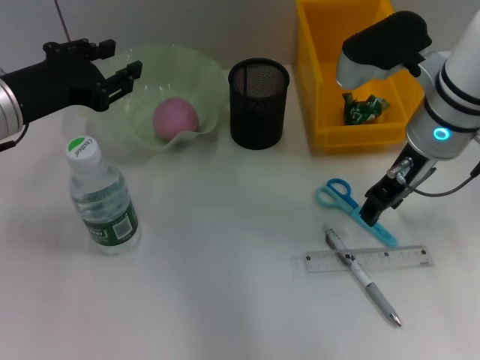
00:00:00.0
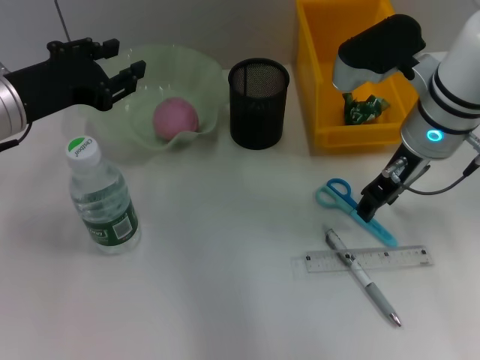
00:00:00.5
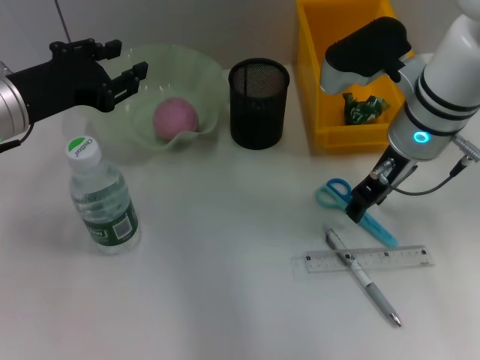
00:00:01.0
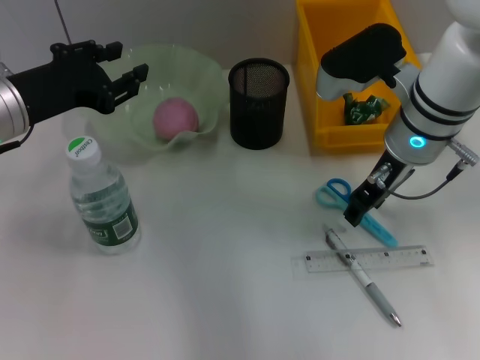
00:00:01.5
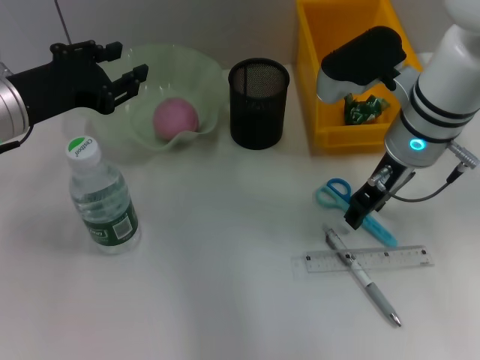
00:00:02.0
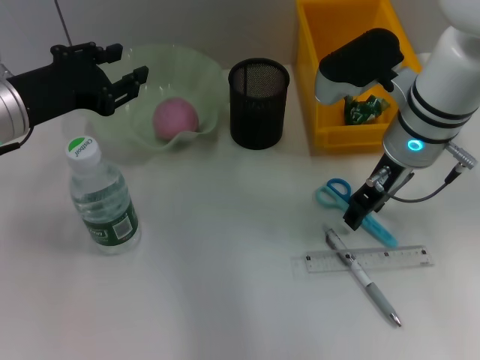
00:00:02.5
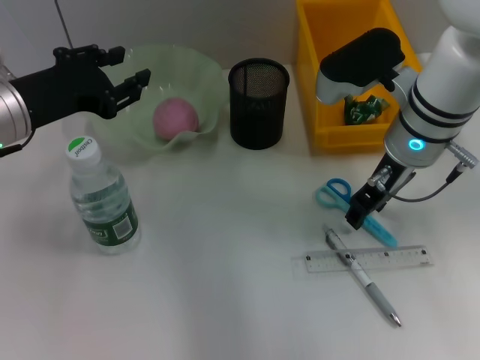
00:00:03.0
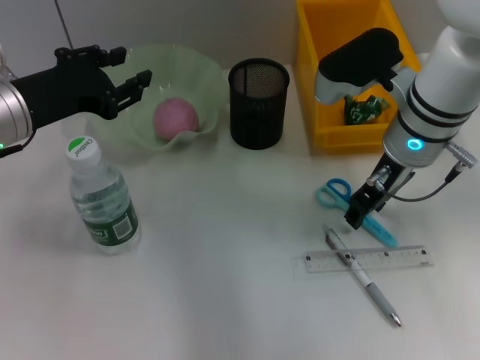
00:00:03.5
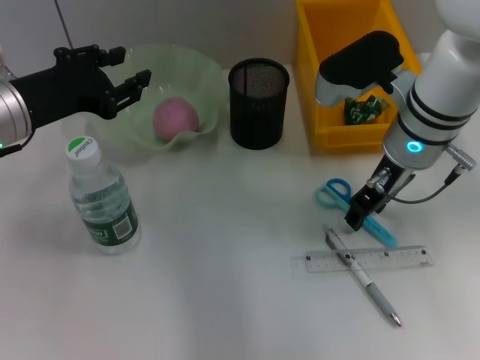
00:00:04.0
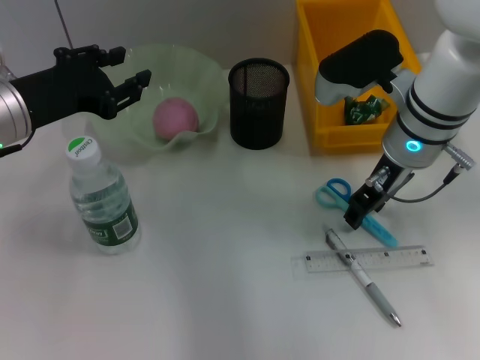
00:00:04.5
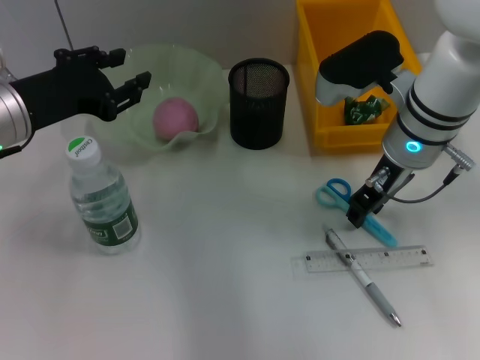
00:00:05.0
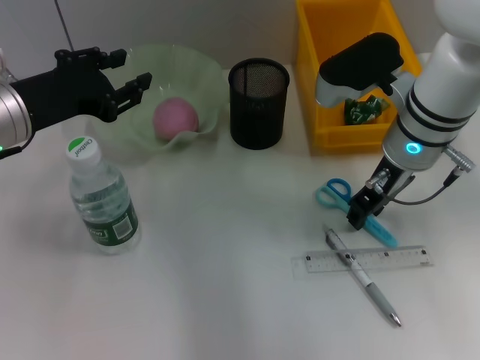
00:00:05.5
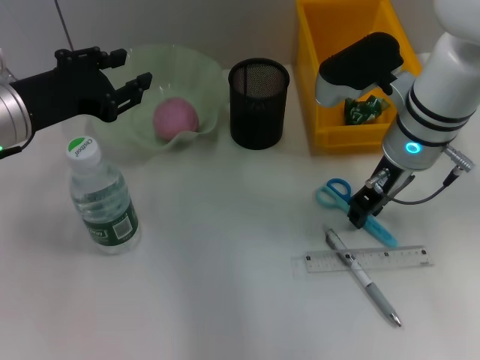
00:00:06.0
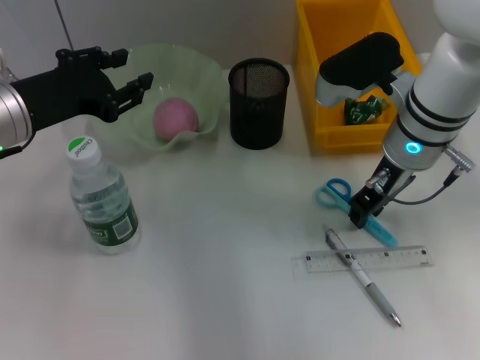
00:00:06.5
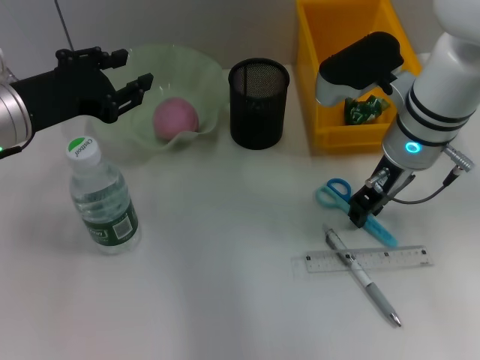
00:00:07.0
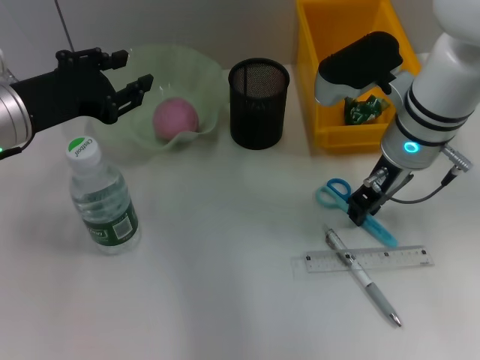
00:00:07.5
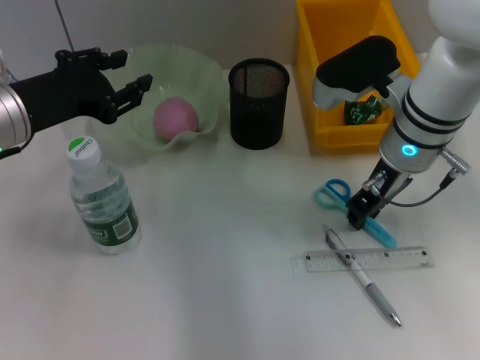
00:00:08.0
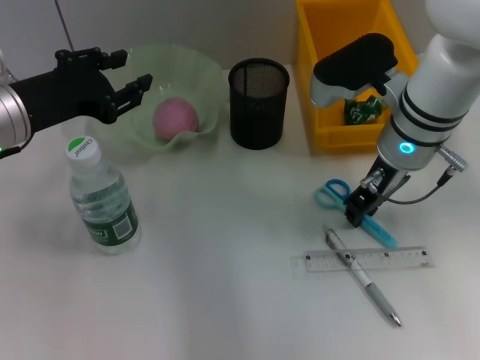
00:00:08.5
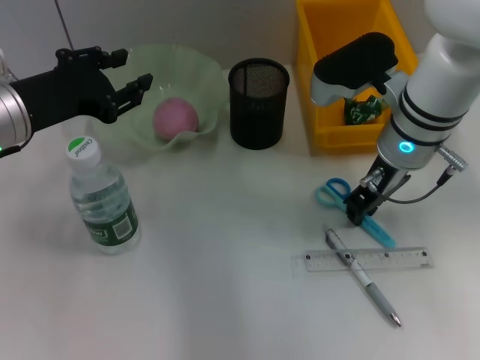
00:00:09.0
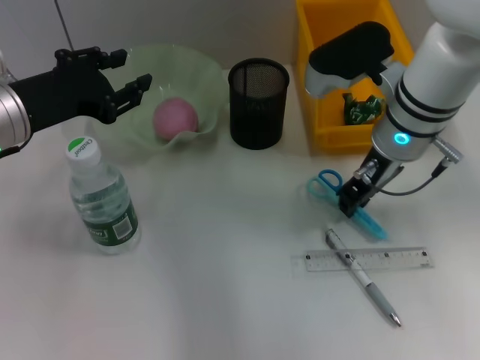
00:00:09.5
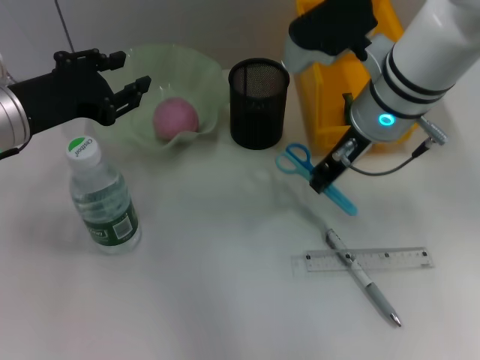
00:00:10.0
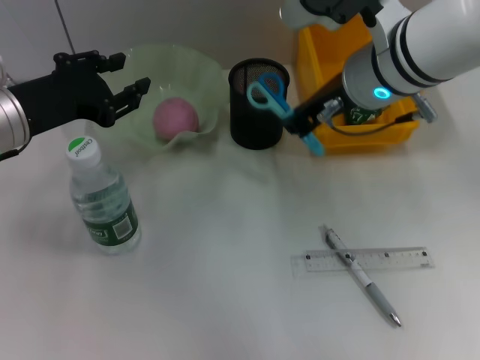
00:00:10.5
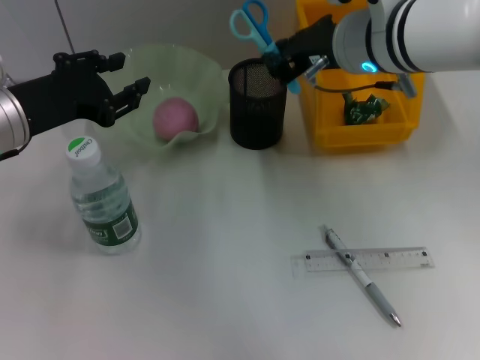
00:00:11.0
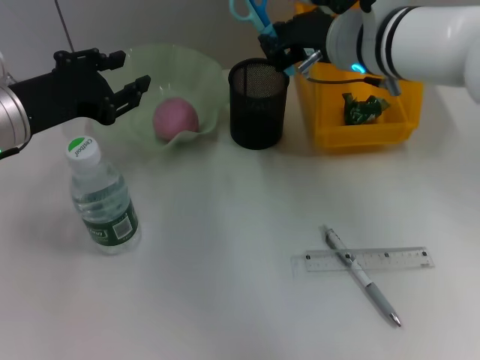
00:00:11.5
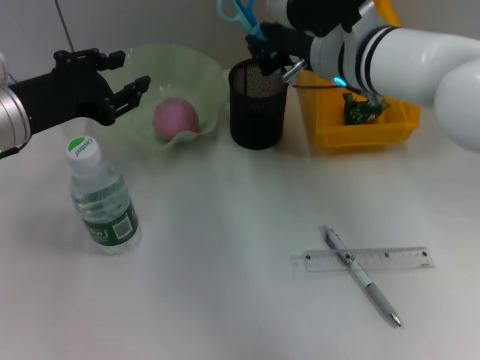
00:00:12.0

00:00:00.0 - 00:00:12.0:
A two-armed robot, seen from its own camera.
Step, 00:00:00.0 - 00:00:09.0: Grab the blue scissors with the right hand.
00:00:00.0 - 00:00:02.0: The grippers make only small movements.
00:00:02.0 - 00:00:08.0: The two grippers keep their place.
00:00:08.0 - 00:00:10.0: The right gripper shifts by about 5 cm.

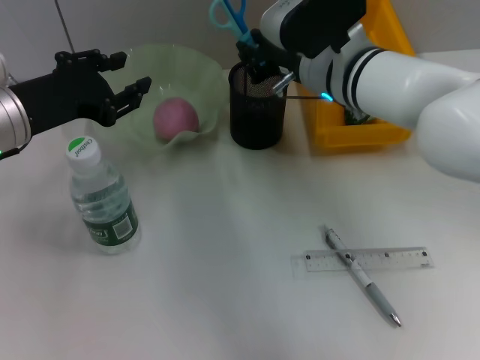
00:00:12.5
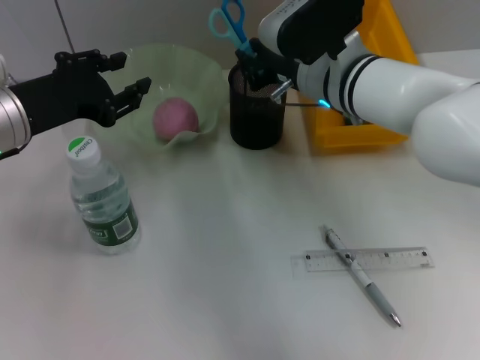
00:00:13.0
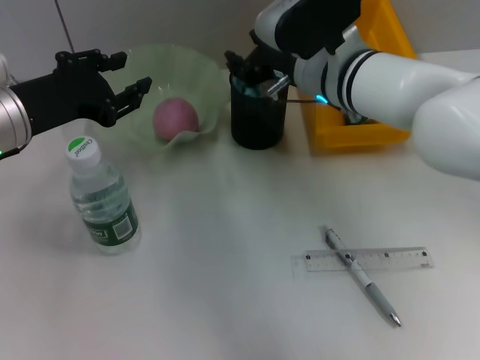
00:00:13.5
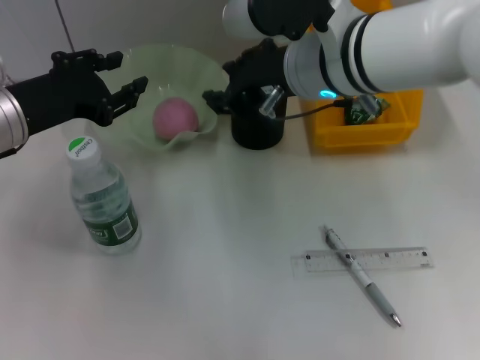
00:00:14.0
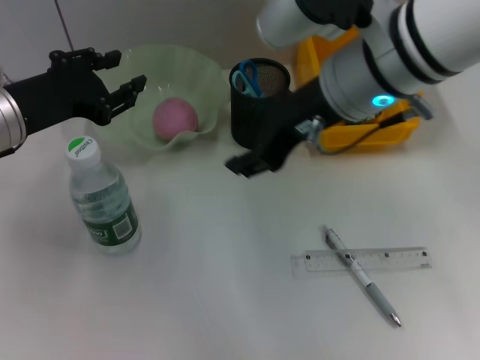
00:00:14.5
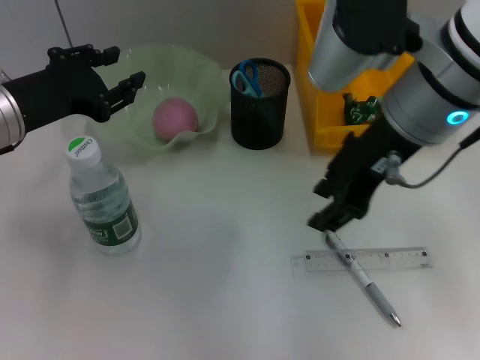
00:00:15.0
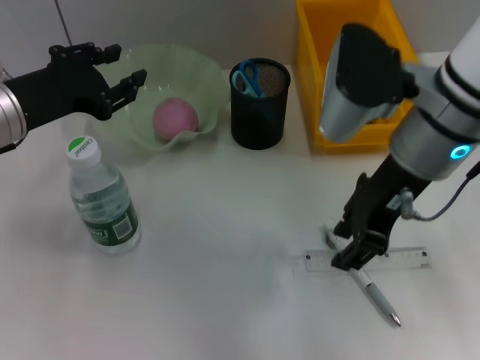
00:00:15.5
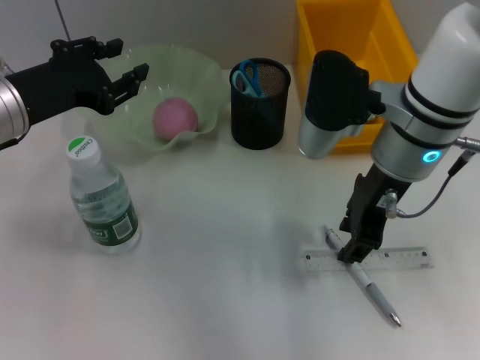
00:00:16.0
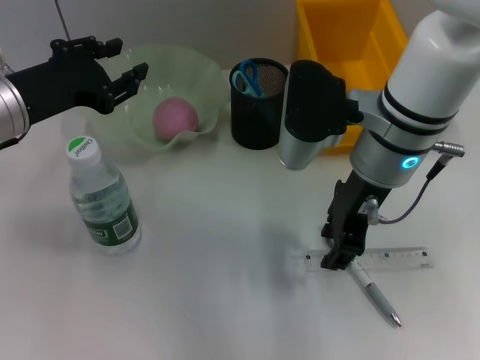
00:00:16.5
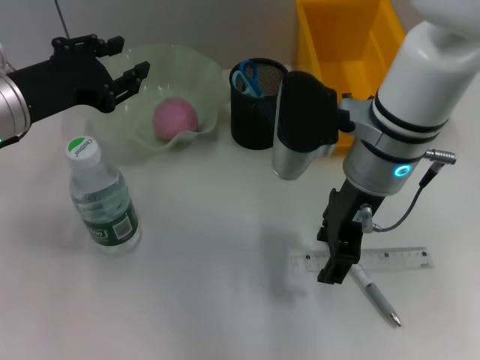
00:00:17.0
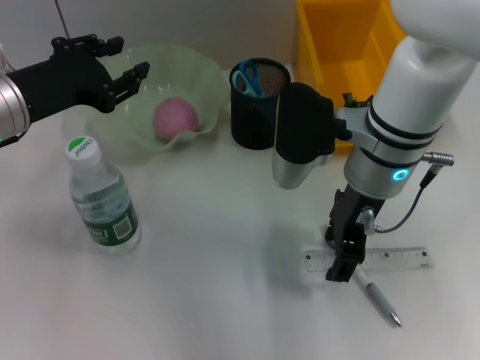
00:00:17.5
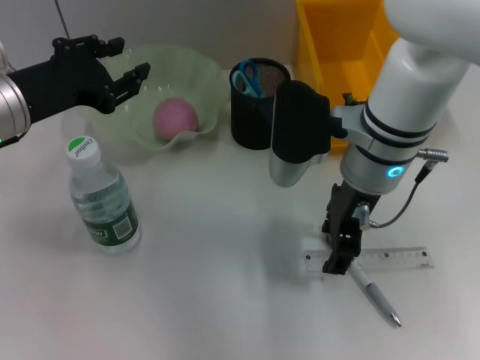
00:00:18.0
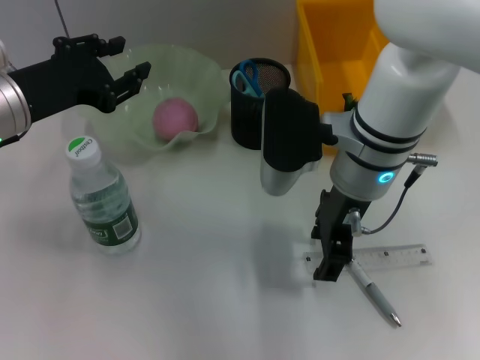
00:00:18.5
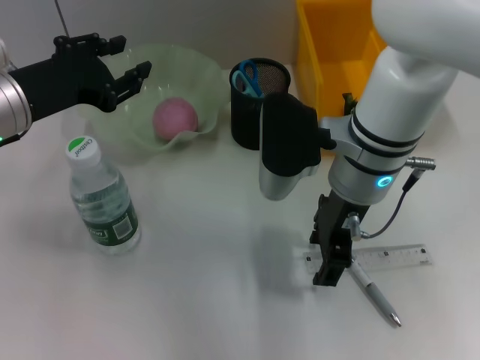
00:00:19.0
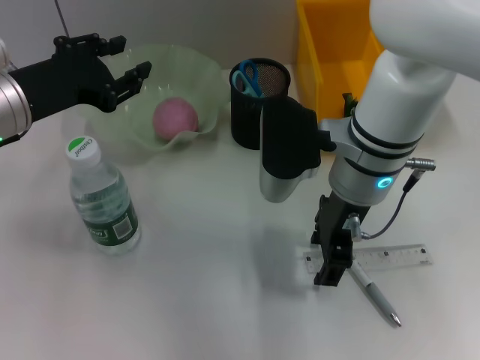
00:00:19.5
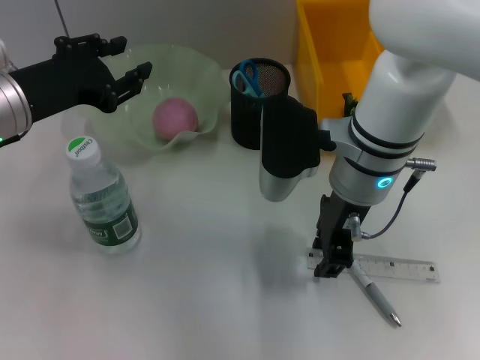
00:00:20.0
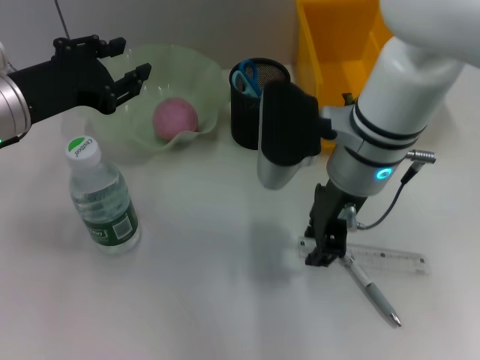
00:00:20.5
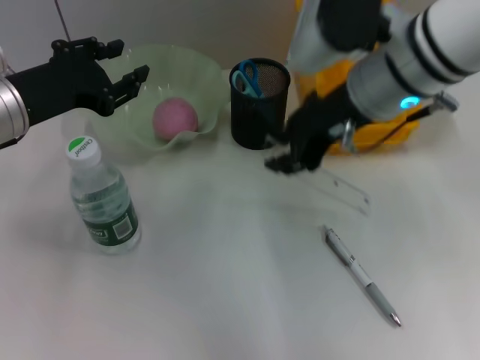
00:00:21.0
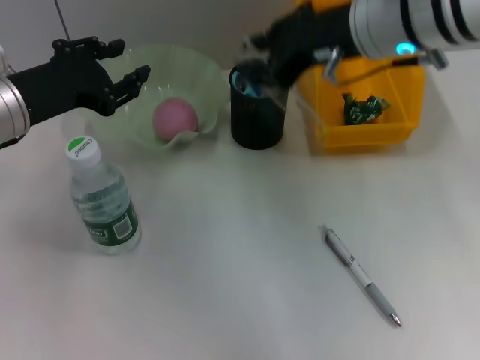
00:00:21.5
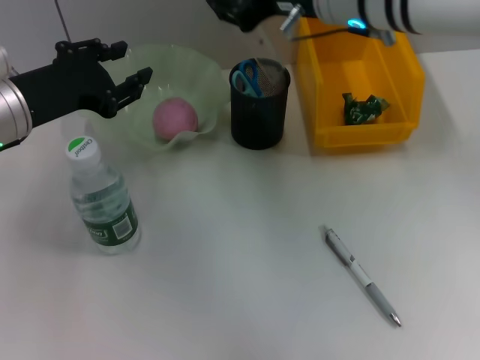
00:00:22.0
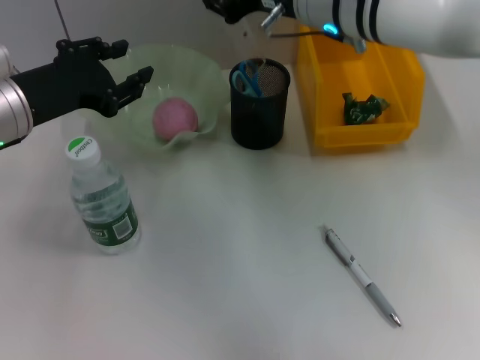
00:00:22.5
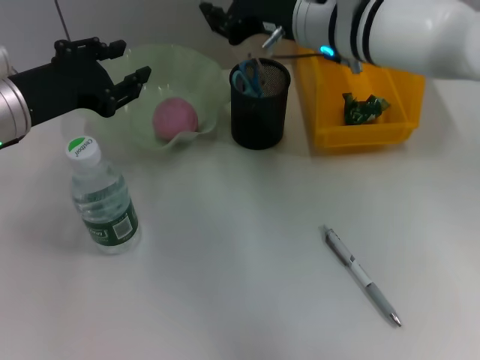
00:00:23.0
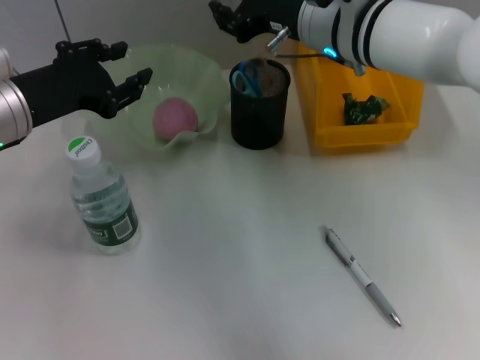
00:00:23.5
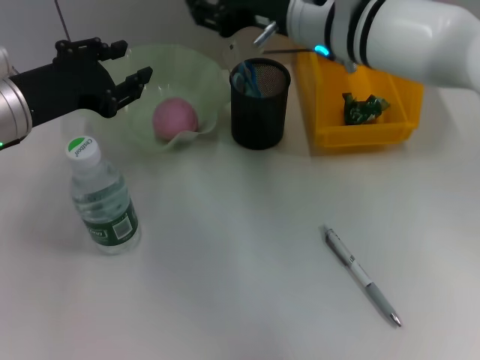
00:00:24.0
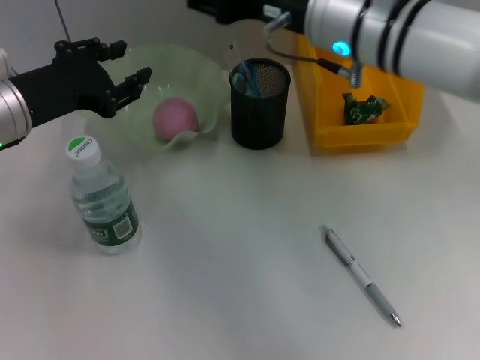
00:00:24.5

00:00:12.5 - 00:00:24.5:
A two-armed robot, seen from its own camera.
Step, 00:00:13.5 - 00:00:19.5: Grab the ruler with the right hand.
Step, 00:00:20.0 - 00:00:23.5: Place the ruler into the pen holder with the right hand.
00:00:12.5 - 00:00:14.5: The right gripper heads upward and backward, covering roughly 10 cm, and opens.
00:00:14.5 - 00:00:16.5: The right gripper shifts about 5 cm downward.
00:00:16.5 - 00:00:18.5: There are only small adjustments of the grippers.
00:00:18.5 - 00:00:20.5: The right gripper closes its fingers.
00:00:20.5 - 00:00:22.5: The right gripper is displaced upward and forward by roughly 10 cm.
00:00:22.5 - 00:00:24.5: The right gripper opens its fingers.

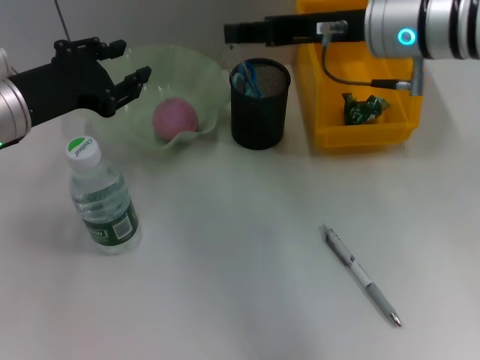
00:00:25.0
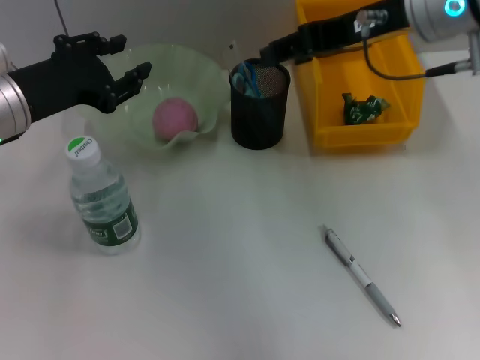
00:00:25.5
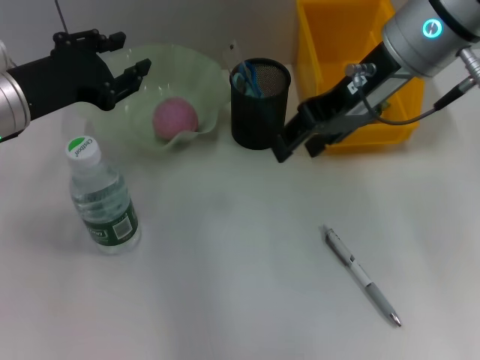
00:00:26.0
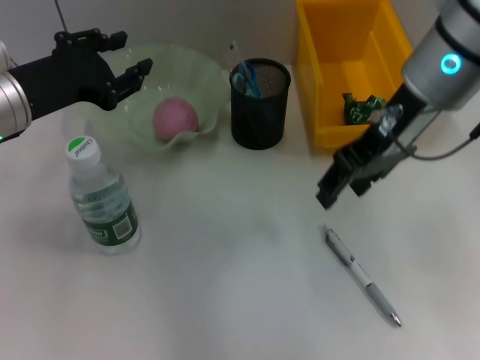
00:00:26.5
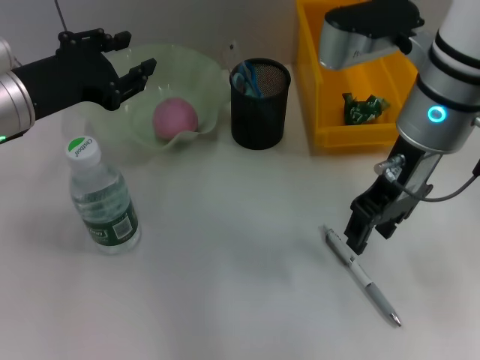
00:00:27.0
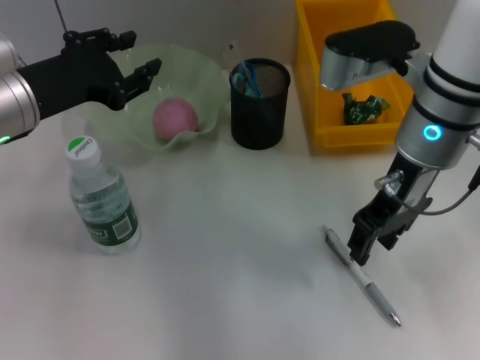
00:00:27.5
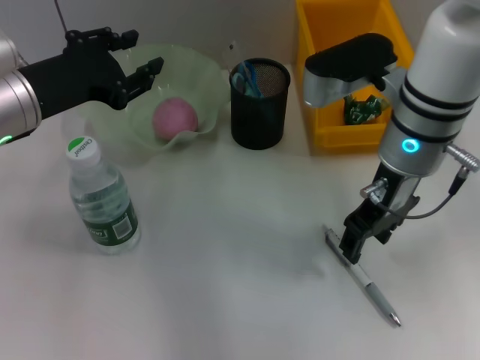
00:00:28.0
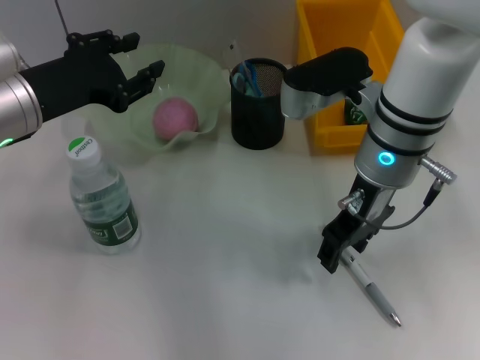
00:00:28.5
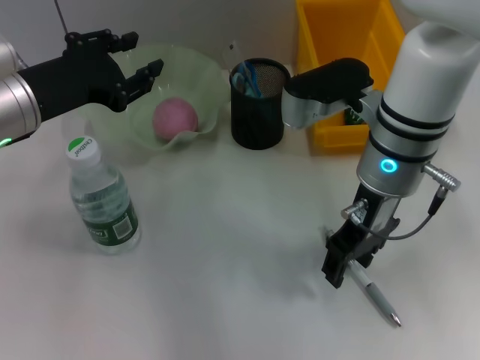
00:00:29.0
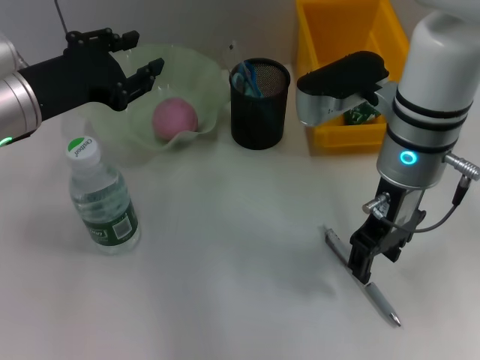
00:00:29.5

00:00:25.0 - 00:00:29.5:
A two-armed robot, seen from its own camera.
00:00:27.0 - 00:00:29.5: There are only small adjustments of the grippers.
